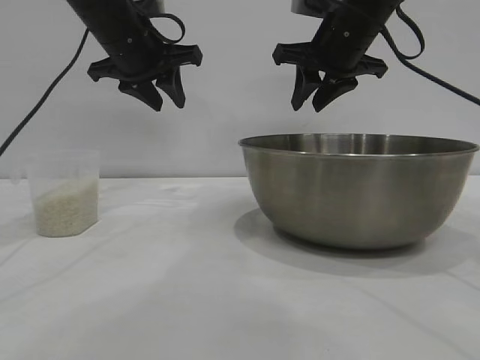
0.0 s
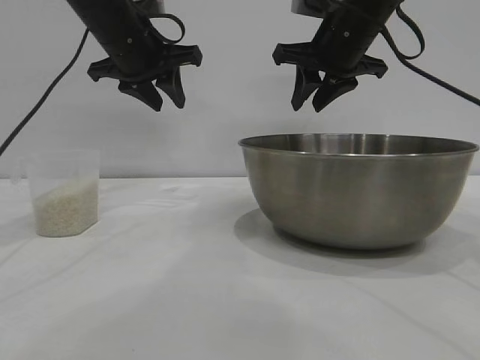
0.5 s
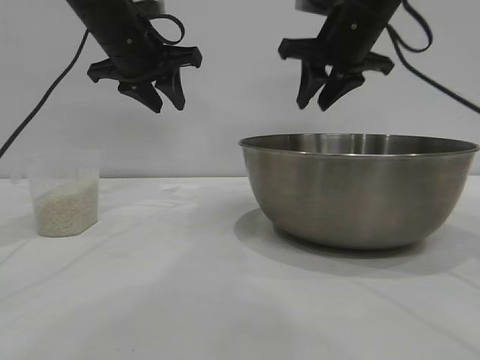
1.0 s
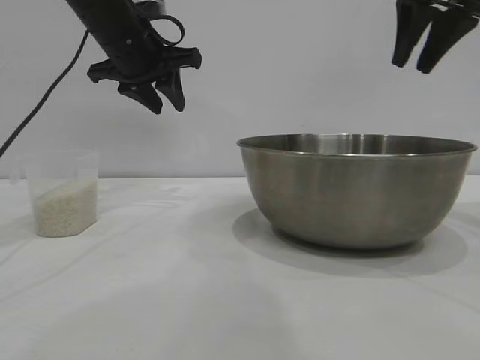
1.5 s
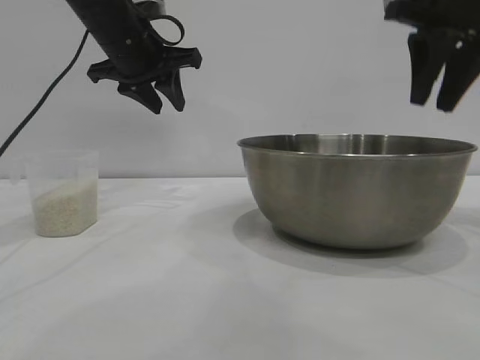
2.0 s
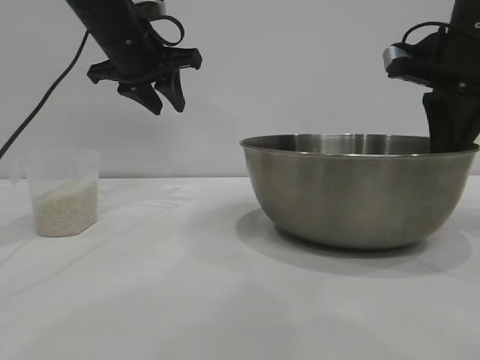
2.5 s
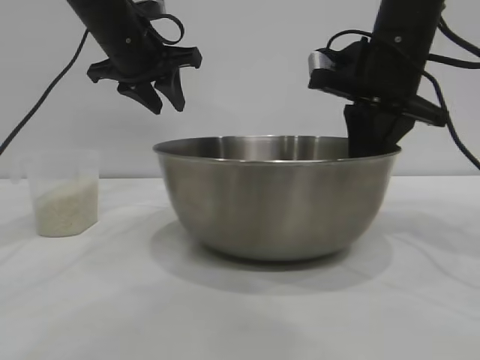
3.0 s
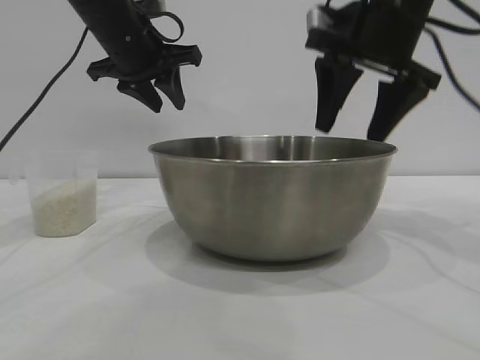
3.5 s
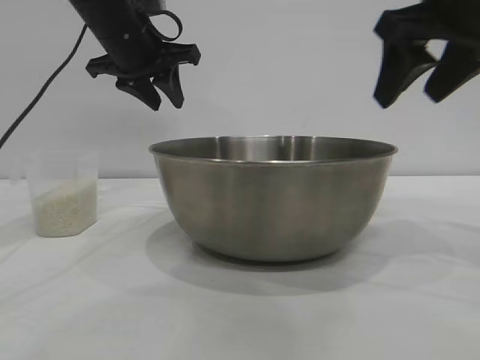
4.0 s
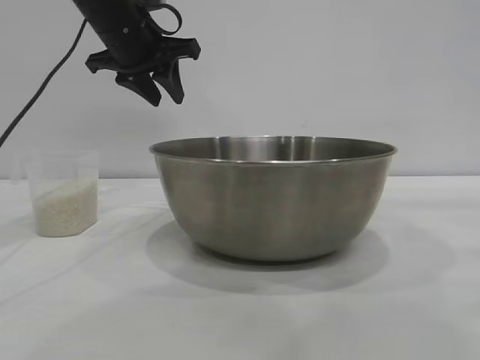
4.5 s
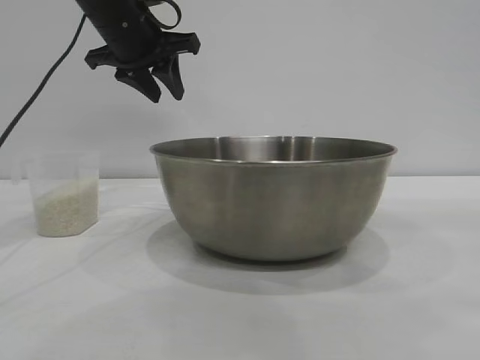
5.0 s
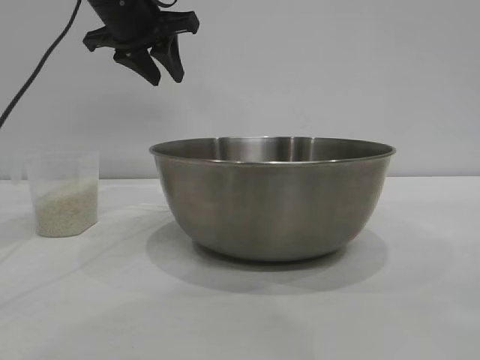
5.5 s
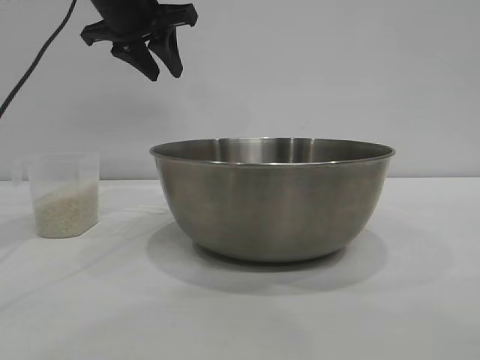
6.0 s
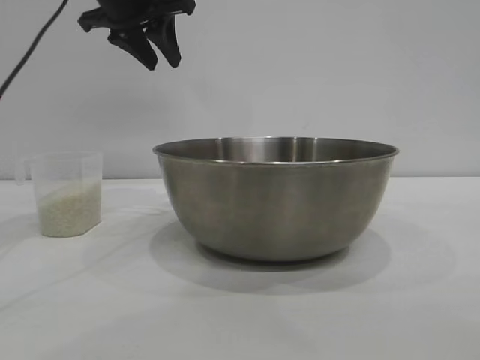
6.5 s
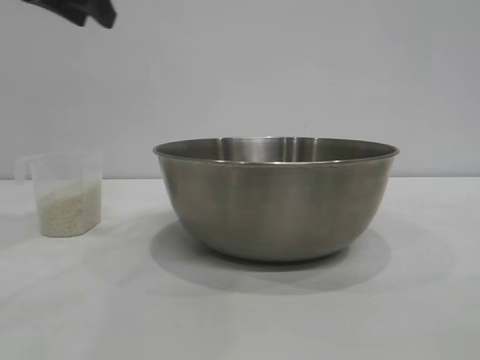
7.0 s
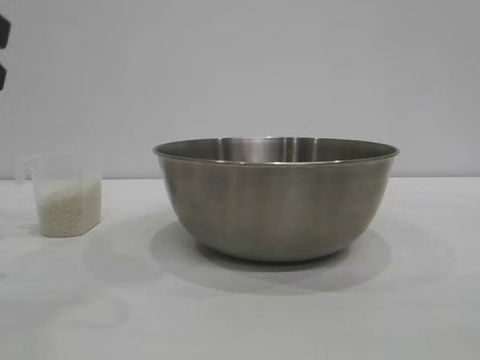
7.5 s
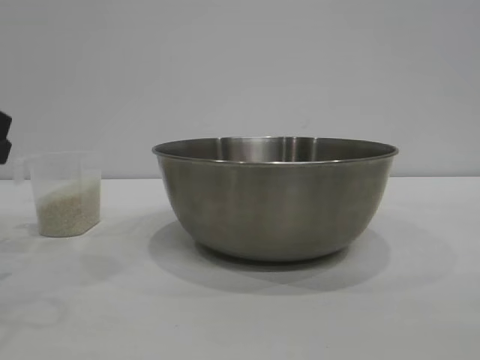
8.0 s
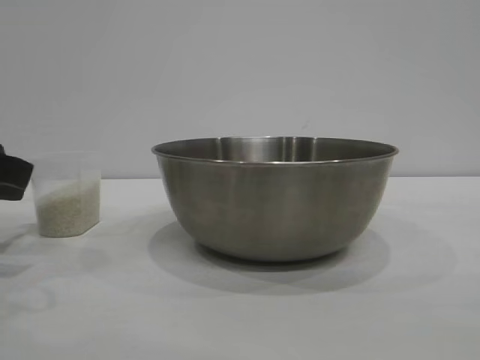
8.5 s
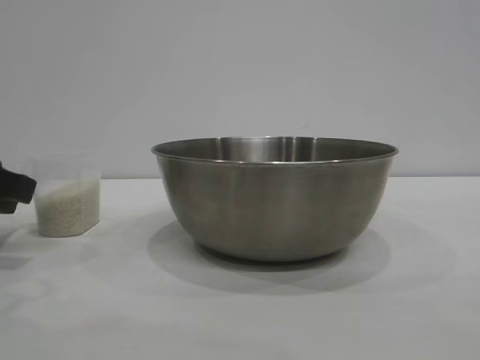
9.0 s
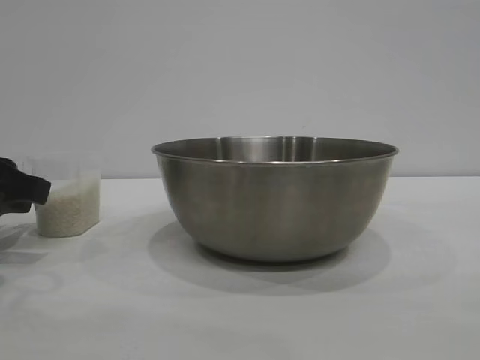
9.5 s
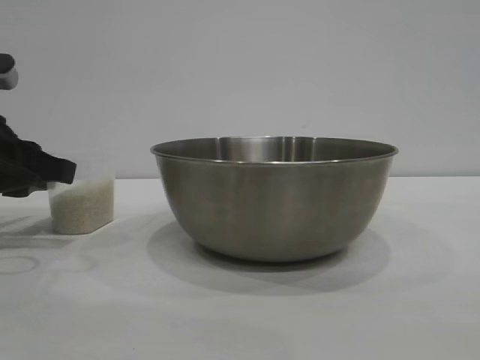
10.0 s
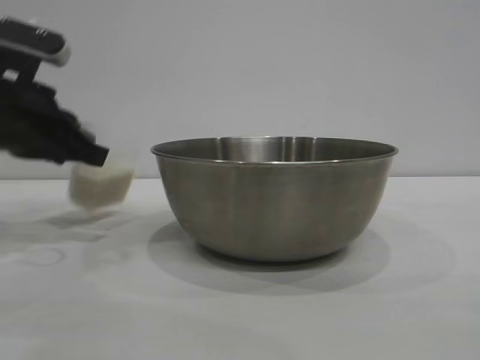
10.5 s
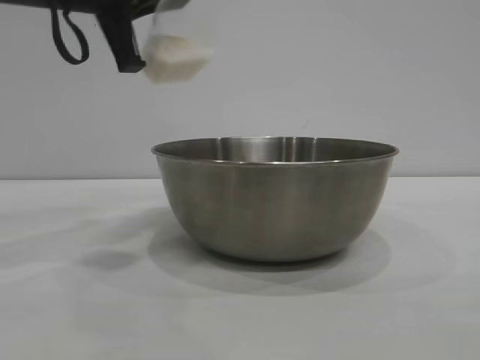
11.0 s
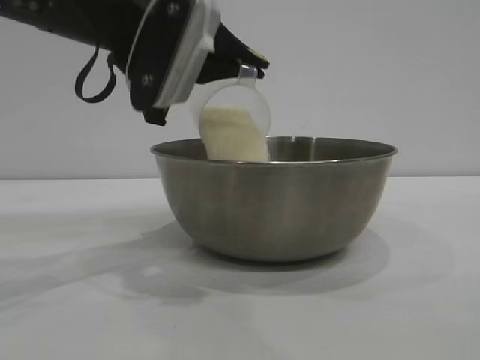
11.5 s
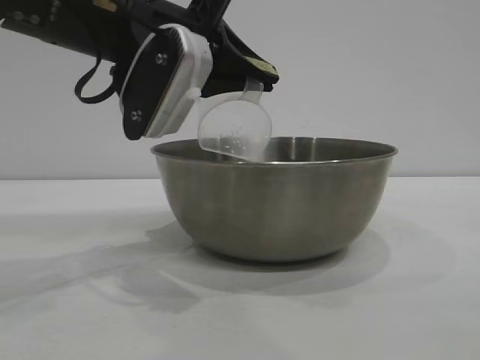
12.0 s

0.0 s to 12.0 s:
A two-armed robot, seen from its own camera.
Task of the whole recording: the right gripper grasp the rice container and place it in the center of the table, the left gripper grasp the rice scoop and pour the rice into the rice container.
Step, 0.0 to 3.5 s: Move the bowl to the center of view with the right gripper.
Step, 4.0 to 10.0 s: Pick up the cup with rice in it with the left gripper.

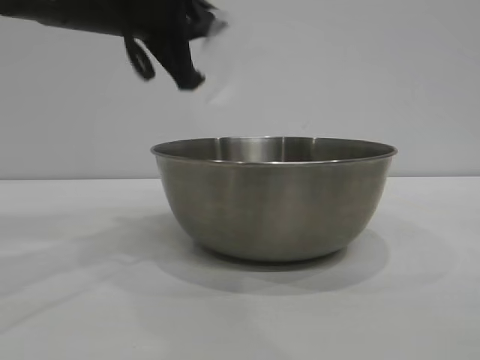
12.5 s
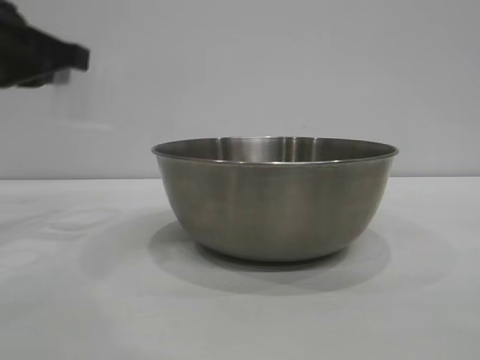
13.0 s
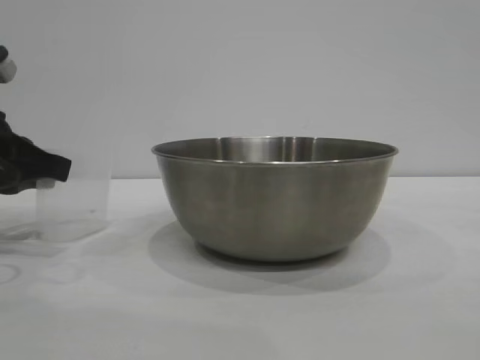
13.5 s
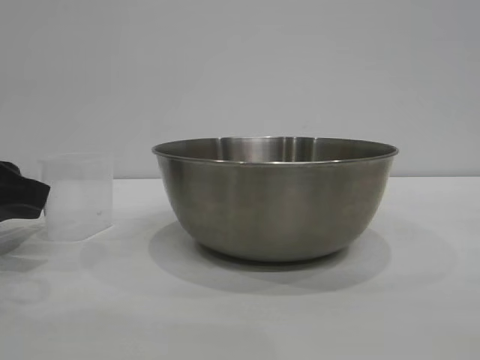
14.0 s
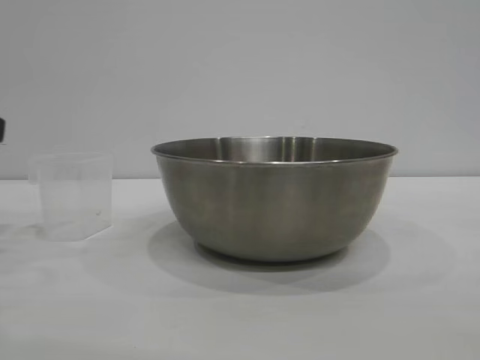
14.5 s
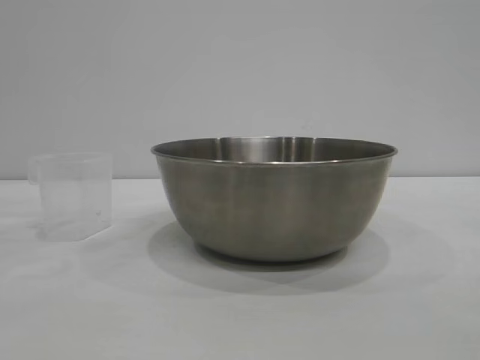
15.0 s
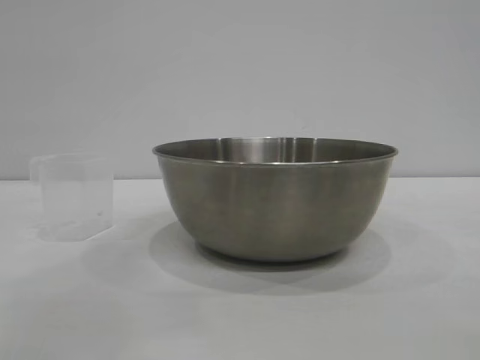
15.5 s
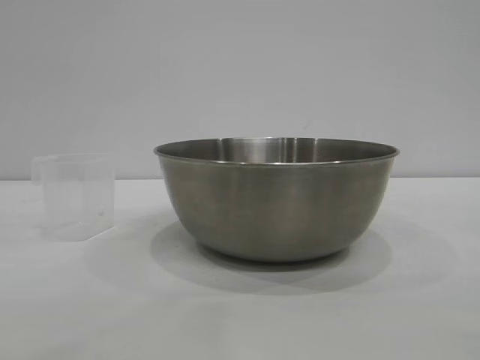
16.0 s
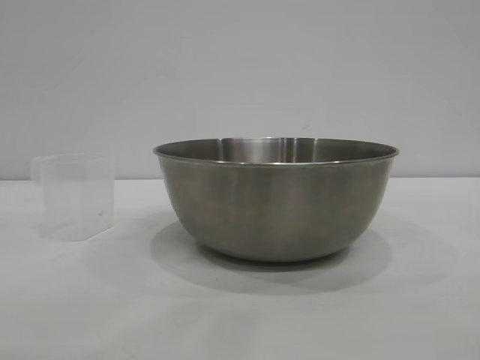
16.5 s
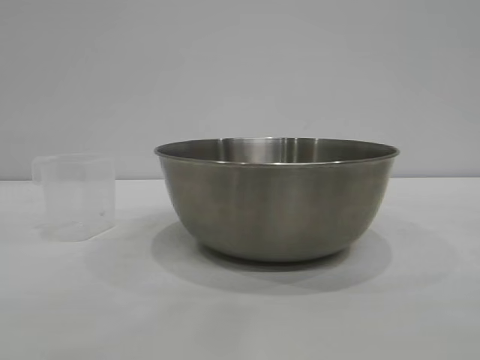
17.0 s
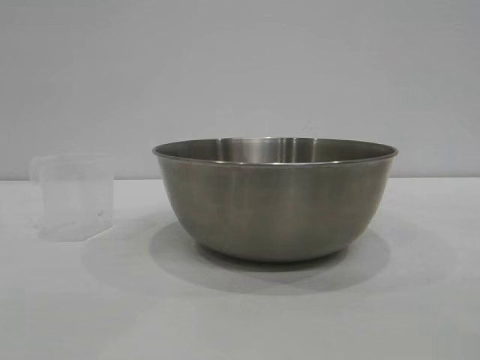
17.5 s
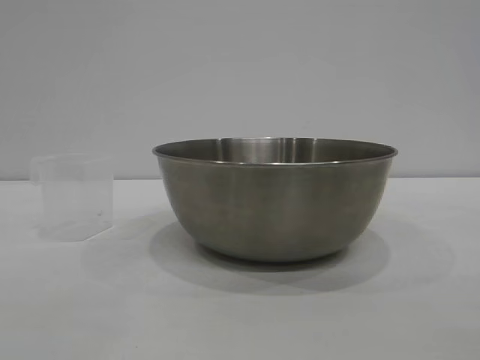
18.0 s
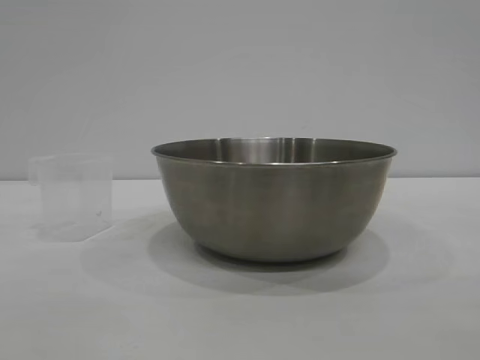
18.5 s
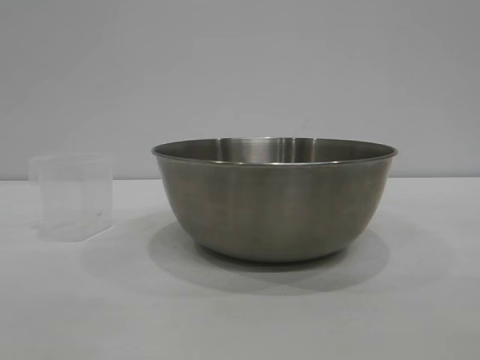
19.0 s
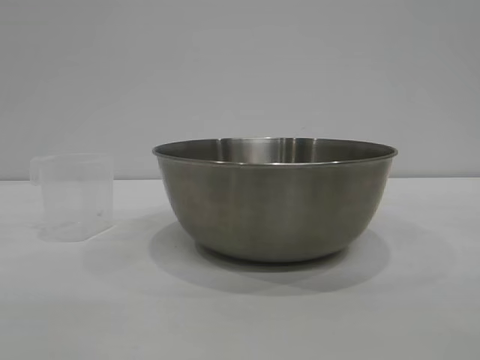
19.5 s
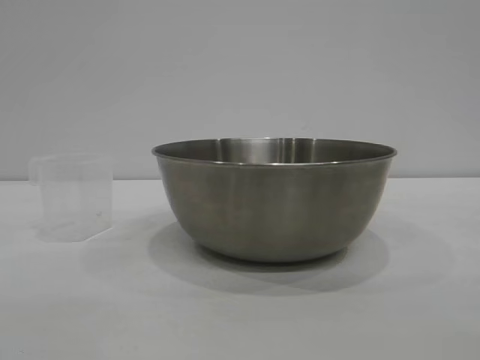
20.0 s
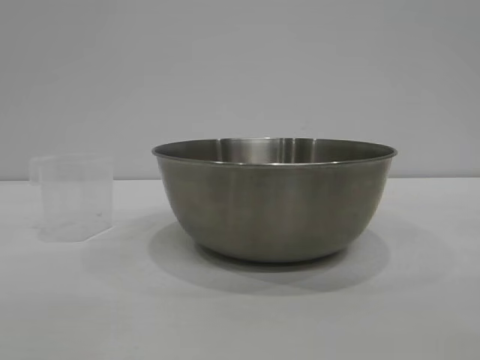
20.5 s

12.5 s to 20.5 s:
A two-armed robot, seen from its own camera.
Task of the whole recording: the right gripper grasp the rice container and place it in the center of the table, the left gripper grasp the rice scoop and pour the rice into the rice container.
Step, 12.5 to 14.0 s: Place the cup on the table with the left gripper.

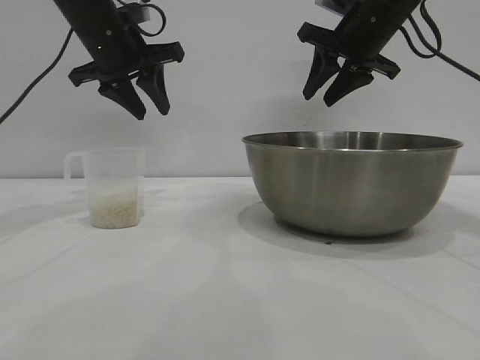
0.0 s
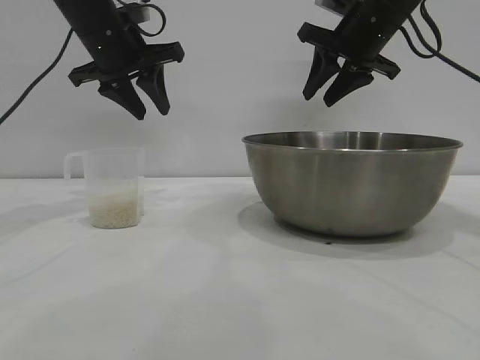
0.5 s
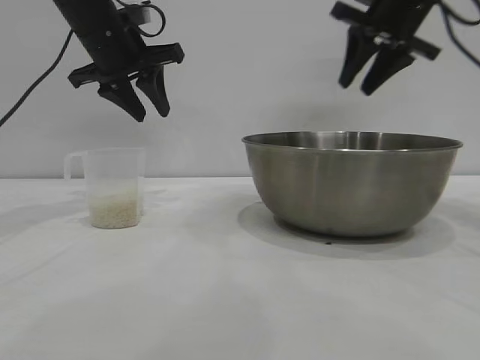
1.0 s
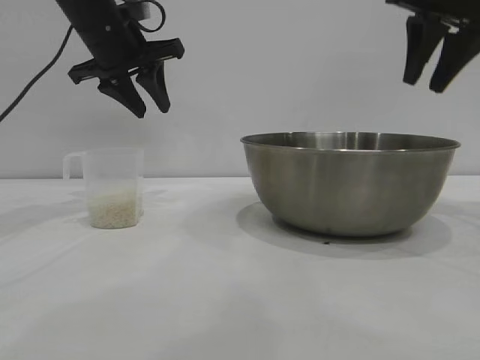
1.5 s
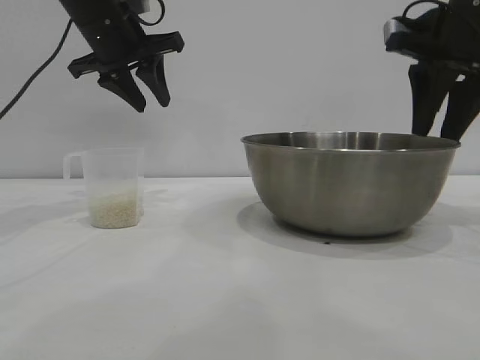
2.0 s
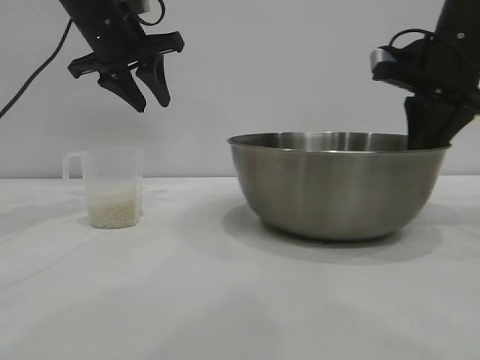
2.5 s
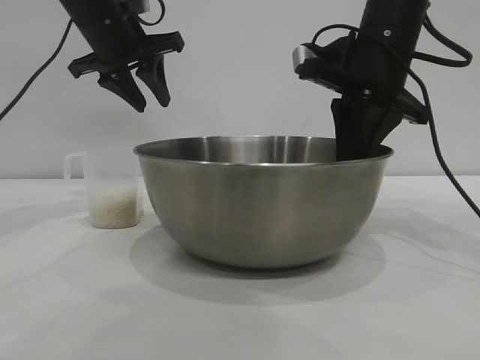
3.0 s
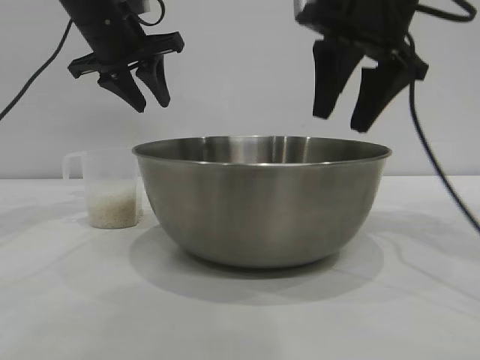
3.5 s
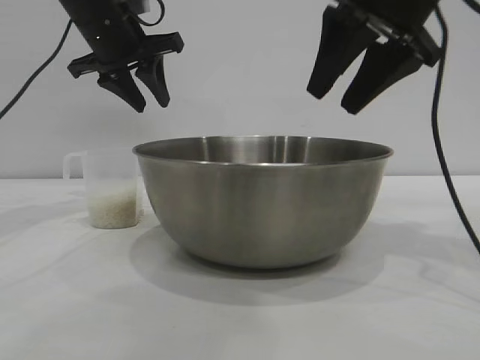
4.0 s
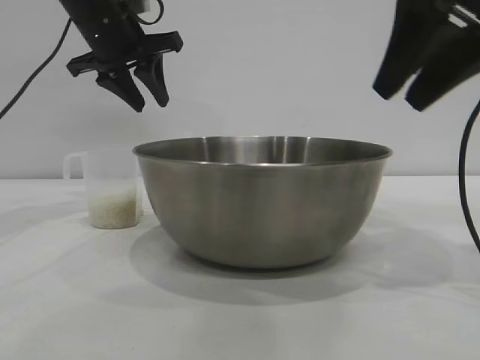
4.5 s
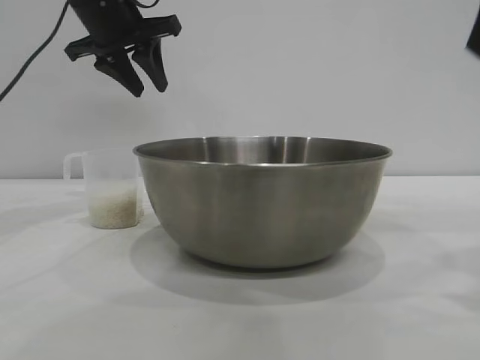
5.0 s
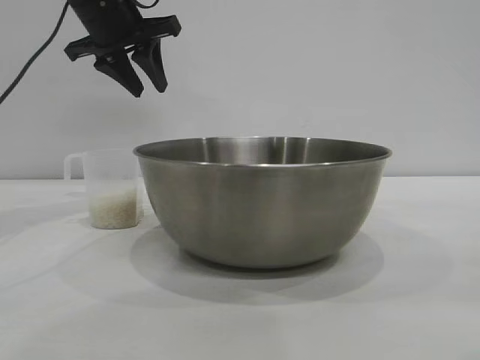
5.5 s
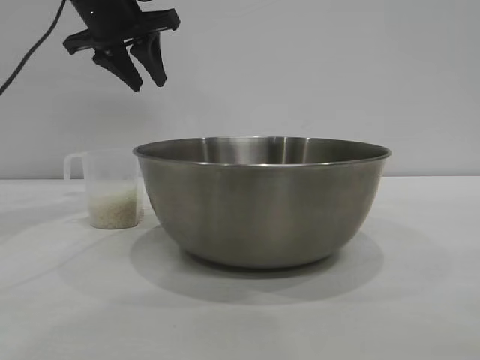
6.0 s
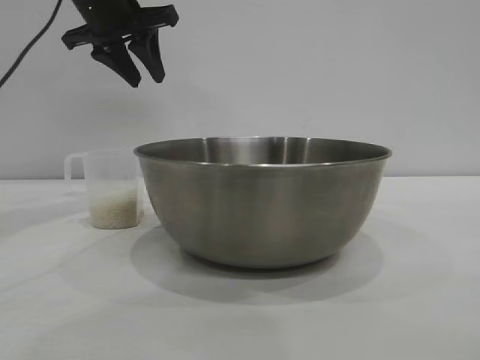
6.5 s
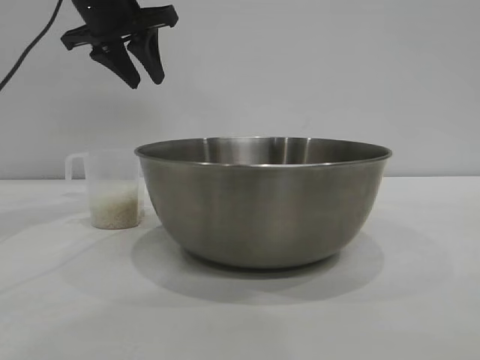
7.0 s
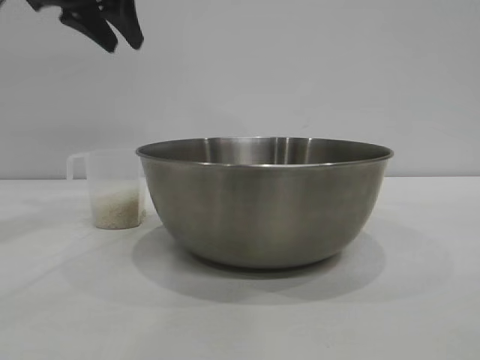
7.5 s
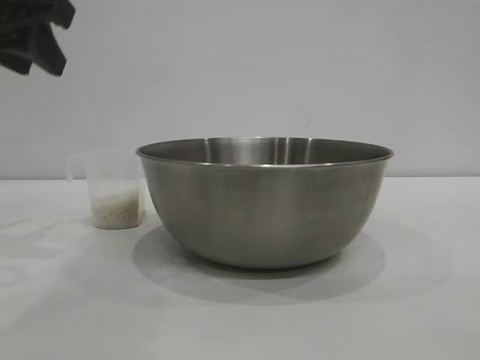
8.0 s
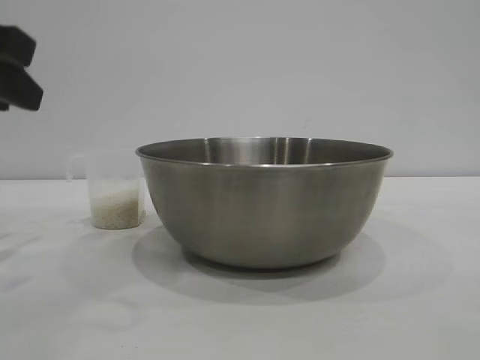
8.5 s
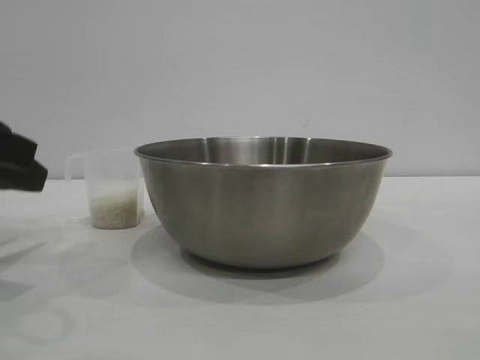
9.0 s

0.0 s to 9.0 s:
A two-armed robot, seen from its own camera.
Task of the whole recording: the right gripper grasp the rice container and place it in the center of the table, the left gripper grasp the rice scoop and pour the rice into the rice container.
Step, 0.0 to 3.5 s: Move the bowl to the center of view with the right gripper.
